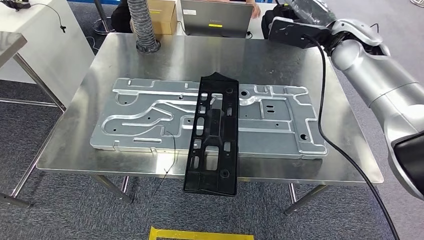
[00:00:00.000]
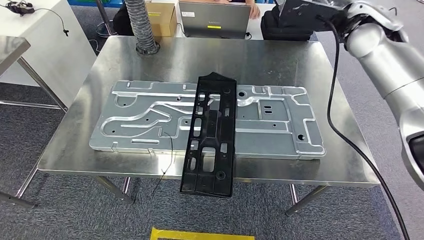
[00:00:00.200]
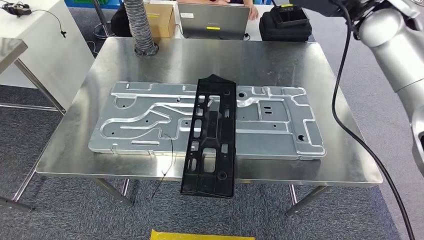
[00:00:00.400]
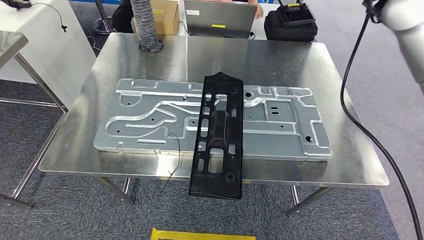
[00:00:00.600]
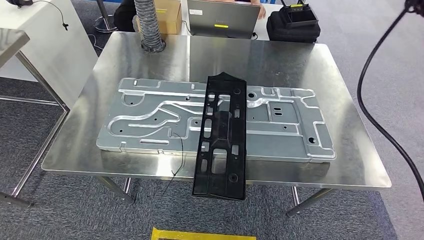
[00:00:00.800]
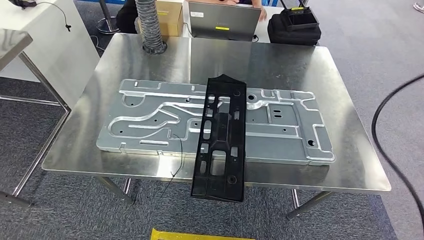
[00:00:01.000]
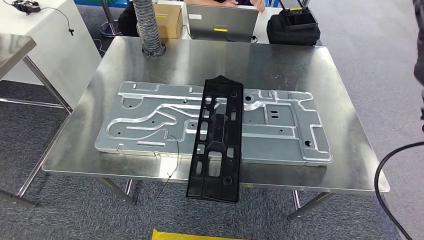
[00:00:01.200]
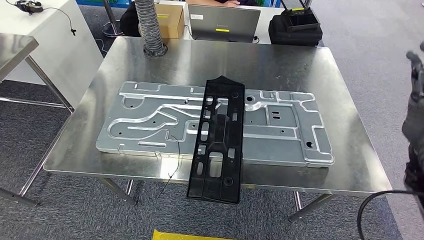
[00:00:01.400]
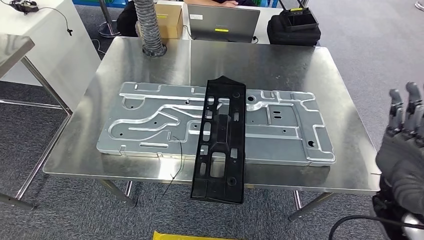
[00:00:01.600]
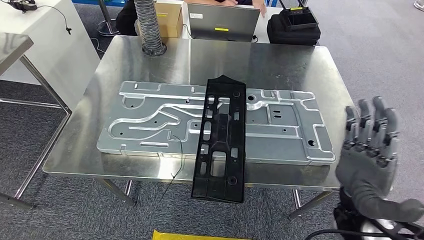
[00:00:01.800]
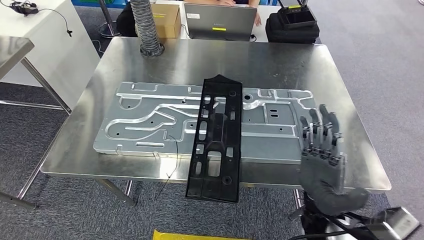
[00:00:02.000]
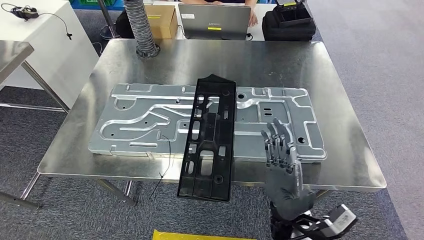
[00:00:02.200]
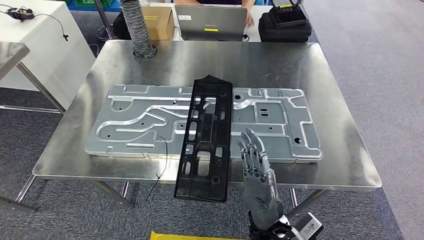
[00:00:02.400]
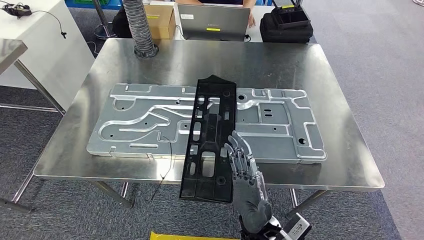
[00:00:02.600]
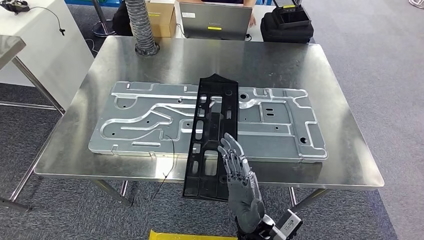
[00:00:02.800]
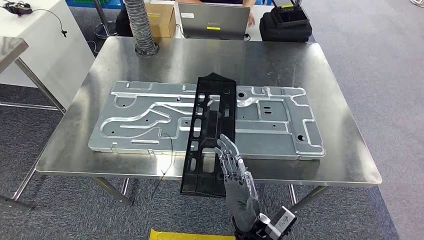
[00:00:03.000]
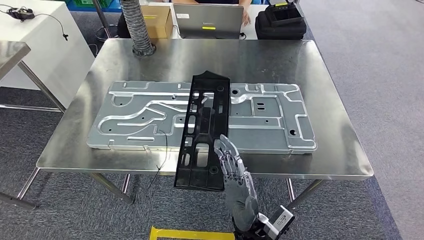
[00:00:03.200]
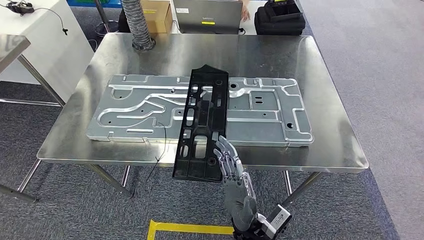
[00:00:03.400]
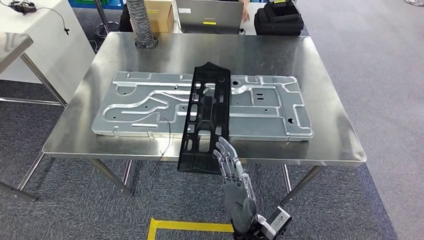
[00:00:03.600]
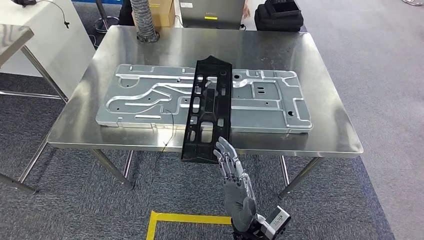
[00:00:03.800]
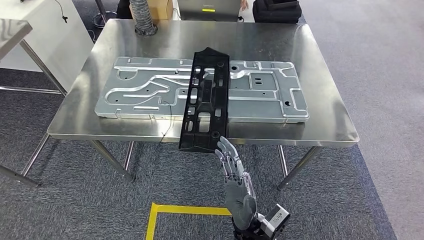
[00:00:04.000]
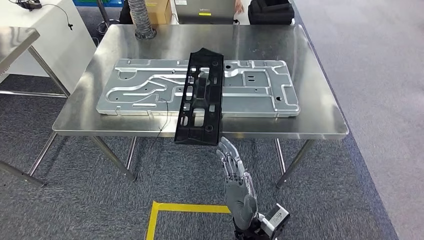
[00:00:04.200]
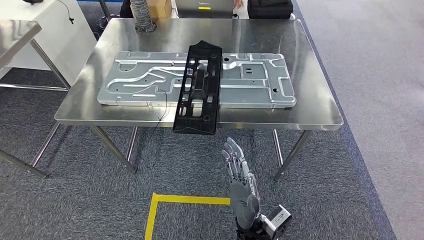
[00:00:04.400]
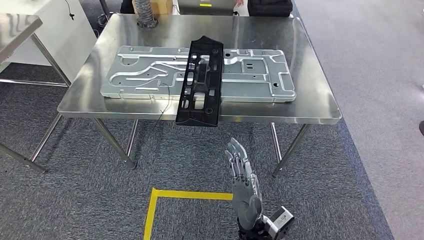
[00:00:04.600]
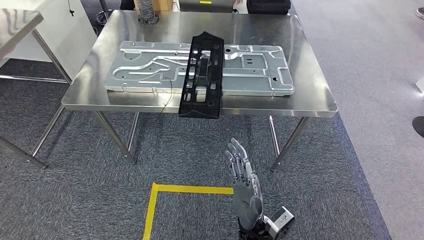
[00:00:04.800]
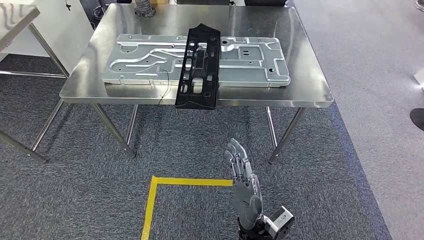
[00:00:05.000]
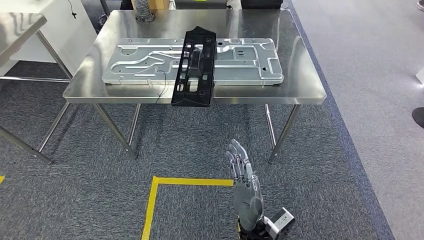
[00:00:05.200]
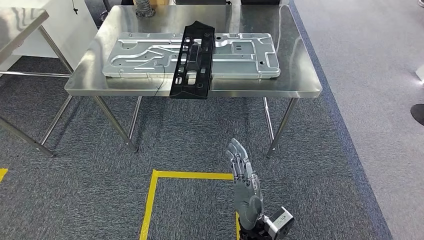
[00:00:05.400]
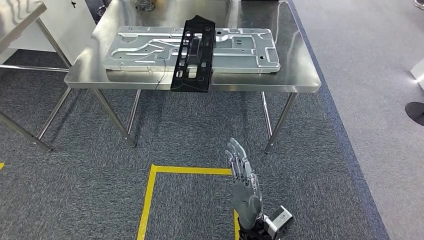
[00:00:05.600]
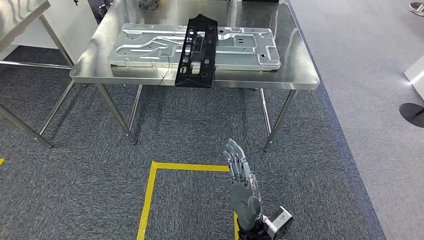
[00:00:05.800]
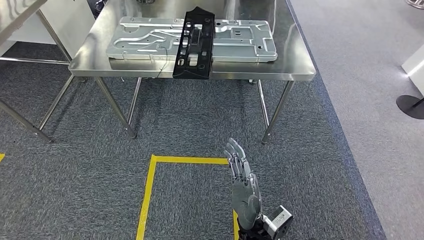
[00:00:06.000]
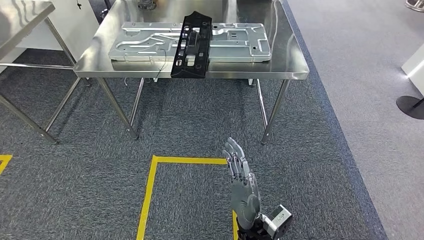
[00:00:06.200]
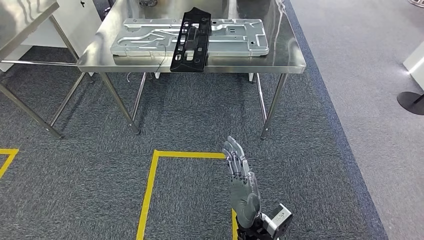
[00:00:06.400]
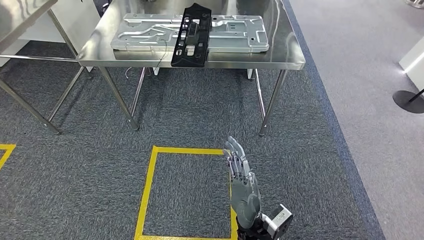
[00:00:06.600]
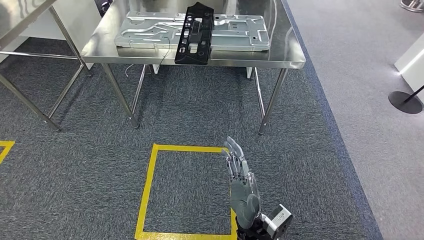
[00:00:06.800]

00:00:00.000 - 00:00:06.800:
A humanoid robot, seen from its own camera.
Step, 00:00:00.000 - 00:00:06.800: Move to the initial position of the shelf.
